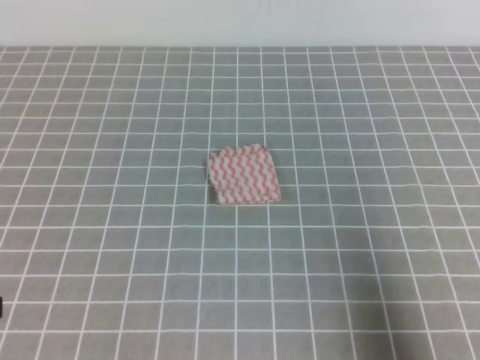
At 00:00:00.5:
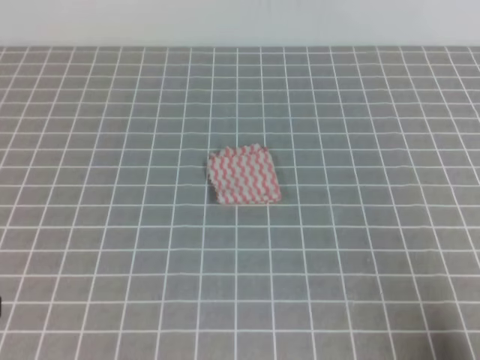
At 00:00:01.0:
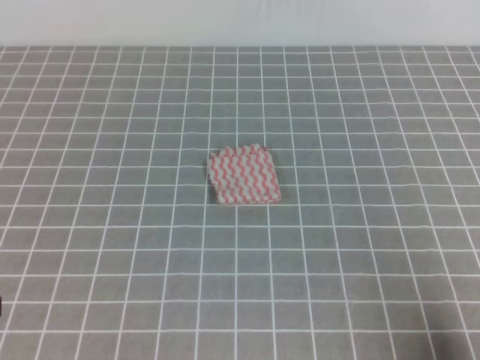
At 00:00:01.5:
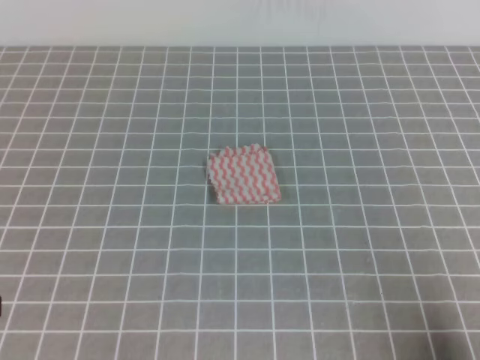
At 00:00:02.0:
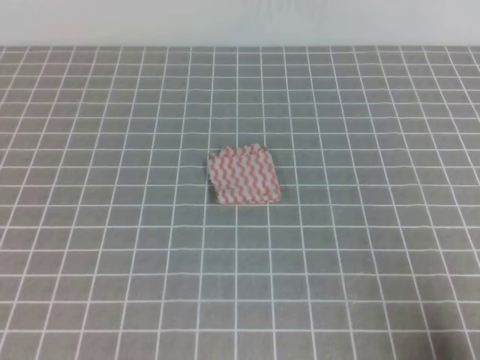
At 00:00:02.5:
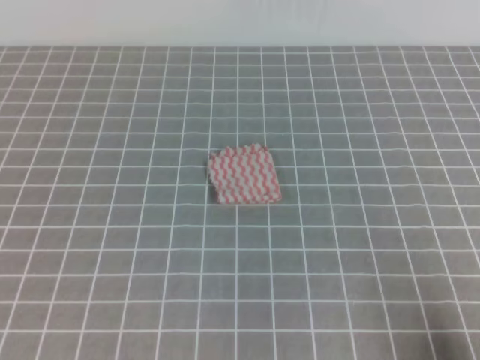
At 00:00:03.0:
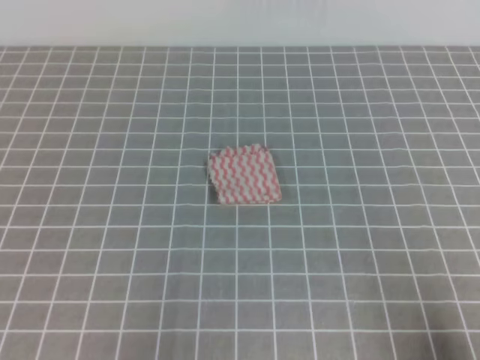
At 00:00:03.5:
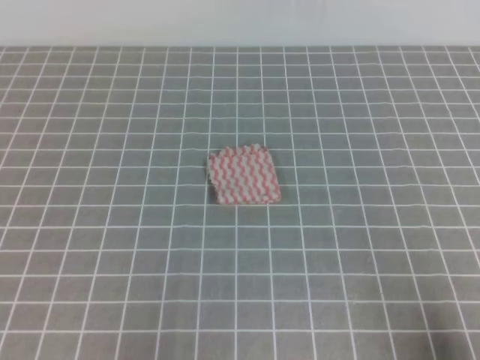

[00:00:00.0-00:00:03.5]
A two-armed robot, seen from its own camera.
00:00:00.0 to 00:00:02.0: The right gripper shifts approximately 5 cm downward.

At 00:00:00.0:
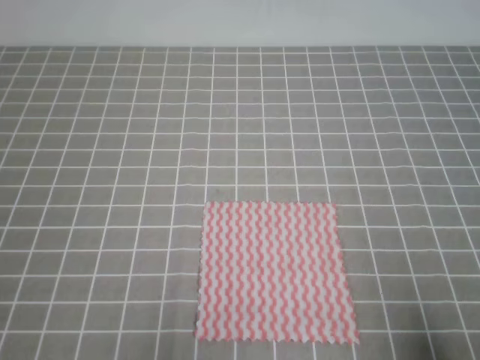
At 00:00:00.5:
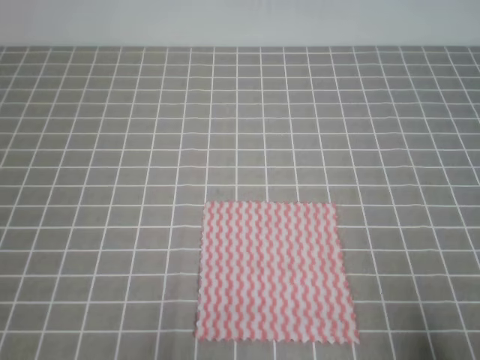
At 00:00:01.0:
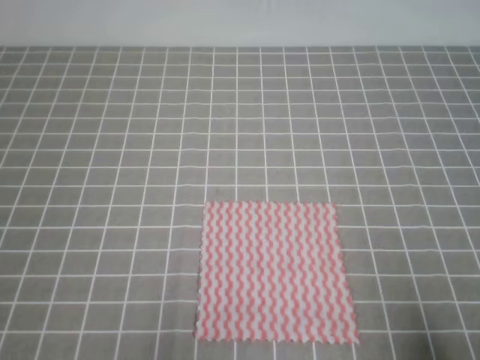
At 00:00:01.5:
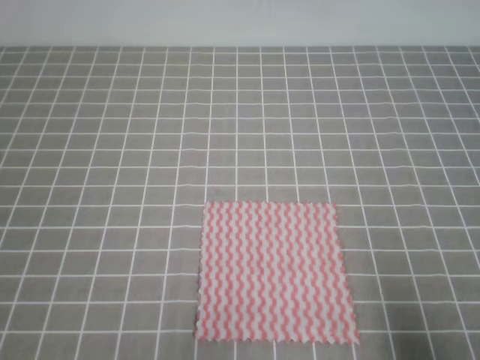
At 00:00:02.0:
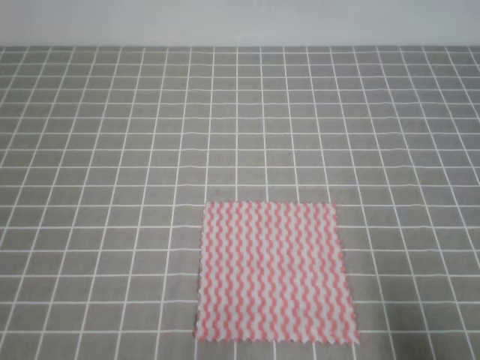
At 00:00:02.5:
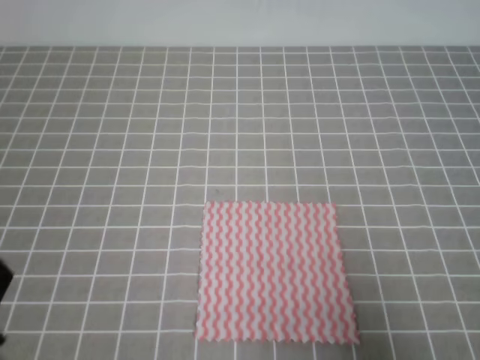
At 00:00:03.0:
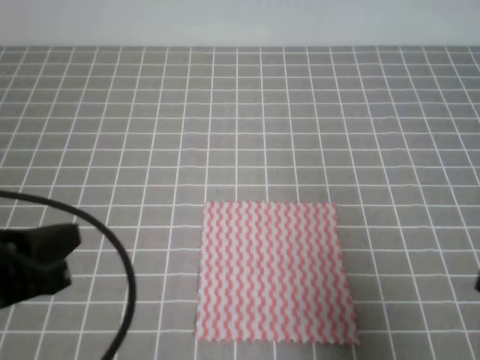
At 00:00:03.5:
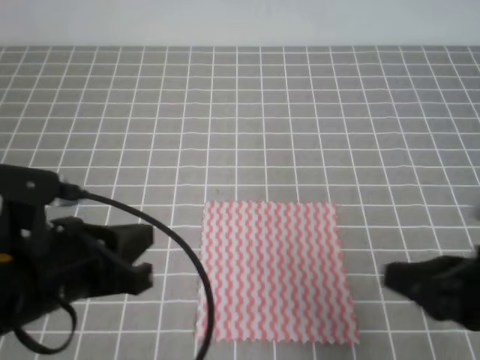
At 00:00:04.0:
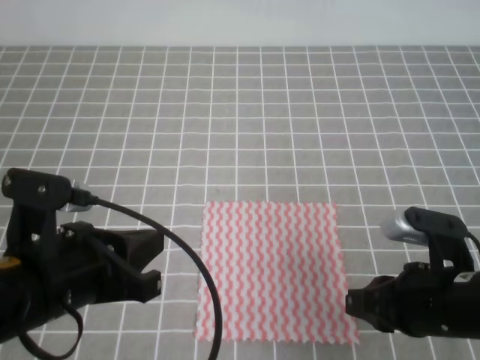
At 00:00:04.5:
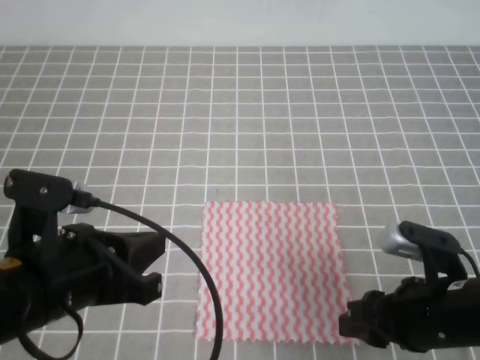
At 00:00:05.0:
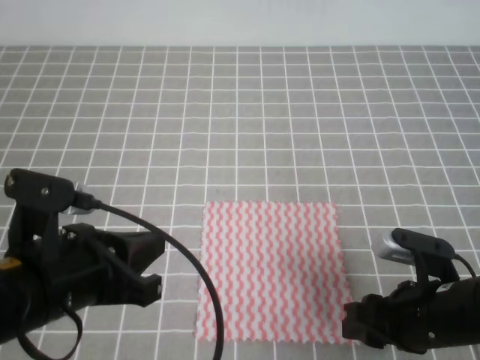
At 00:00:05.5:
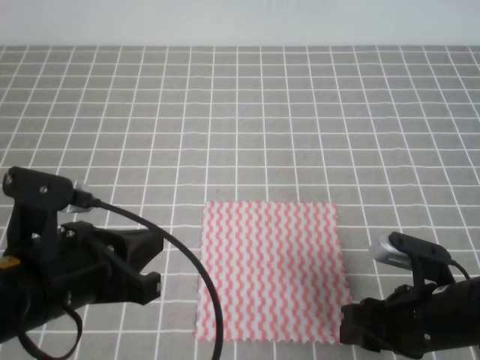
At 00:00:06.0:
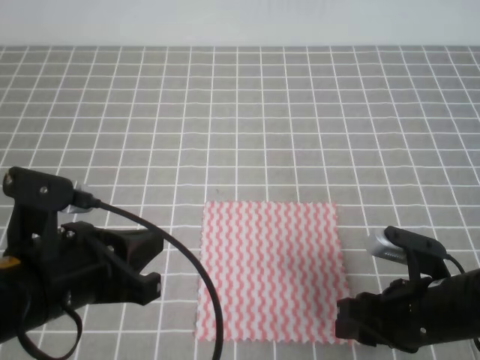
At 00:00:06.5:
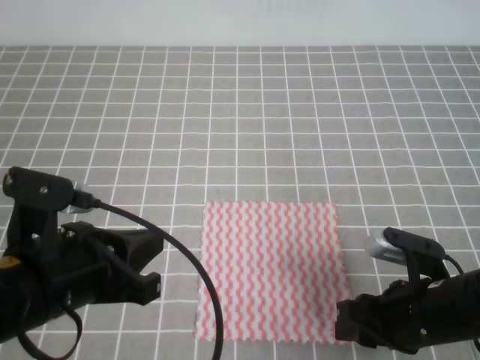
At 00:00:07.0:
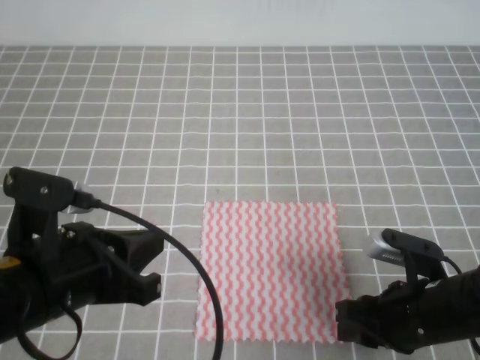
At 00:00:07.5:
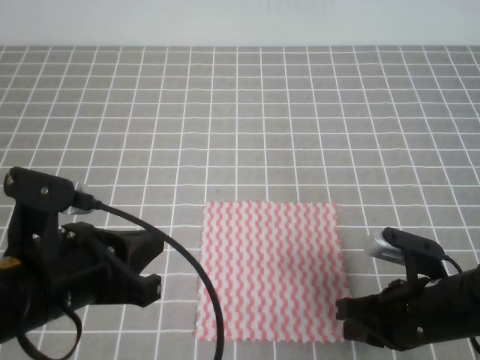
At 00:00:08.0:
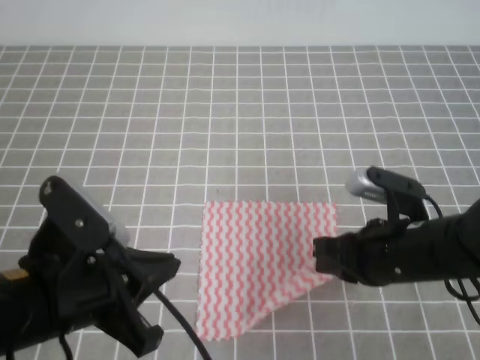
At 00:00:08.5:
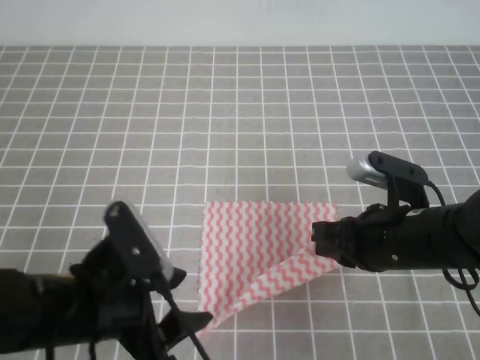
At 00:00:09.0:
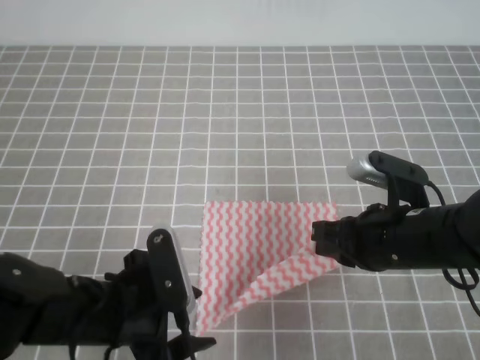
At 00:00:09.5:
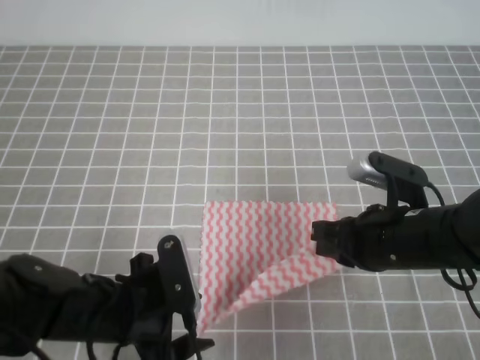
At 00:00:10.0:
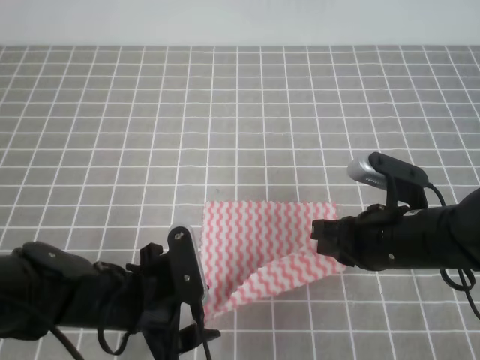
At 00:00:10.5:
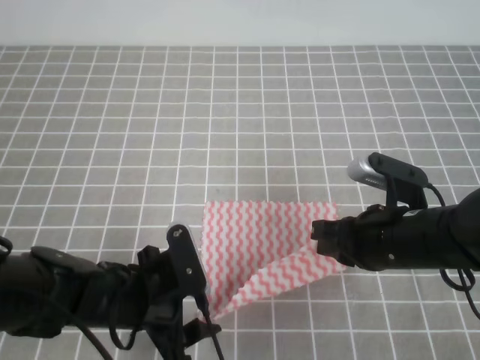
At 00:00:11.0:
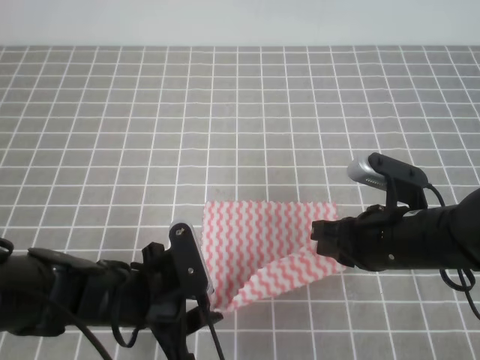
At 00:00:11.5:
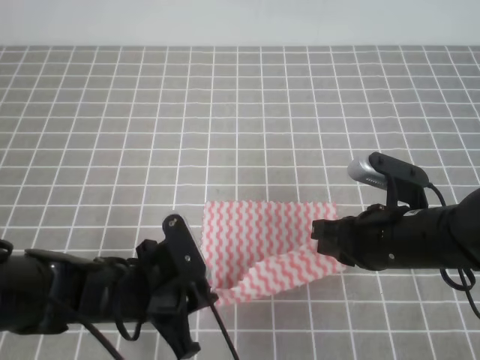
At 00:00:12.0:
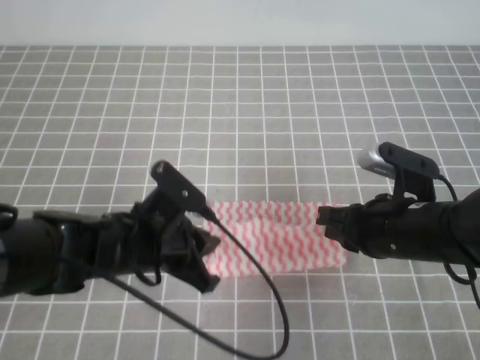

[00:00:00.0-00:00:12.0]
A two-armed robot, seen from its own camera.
00:00:02.0 to 00:00:04.0: The right gripper is displaced to the left and forward by about 15 cm, and opens; the left gripper travels forward, to the right and upward by some 15 cm.
00:00:04.0 to 00:00:06.0: The right gripper changes place by some 5 cm, and opens its fingers.
00:00:06.0 to 00:00:08.0: The right gripper ends up about 5 cm from where it was, and closes up.
00:00:08.0 to 00:00:10.0: The left gripper is displaced downward by some 10 cm, and opens up.
00:00:10.0 to 00:00:12.0: The left gripper changes place by roughly 5 cm, and closes its fingers.

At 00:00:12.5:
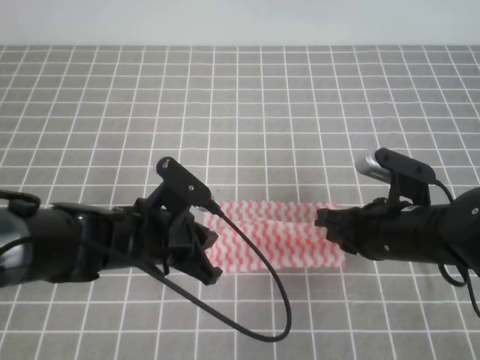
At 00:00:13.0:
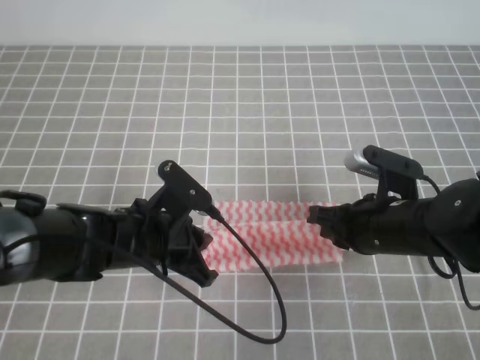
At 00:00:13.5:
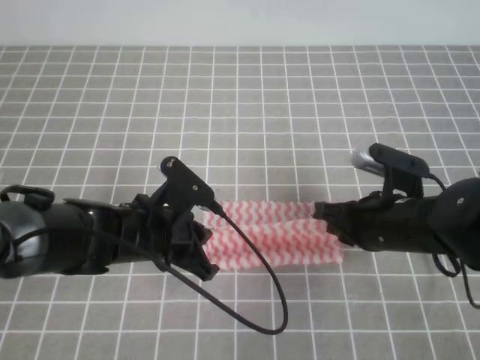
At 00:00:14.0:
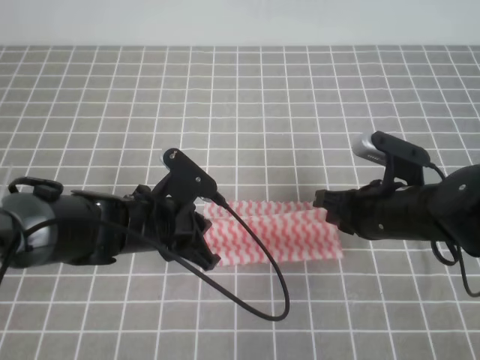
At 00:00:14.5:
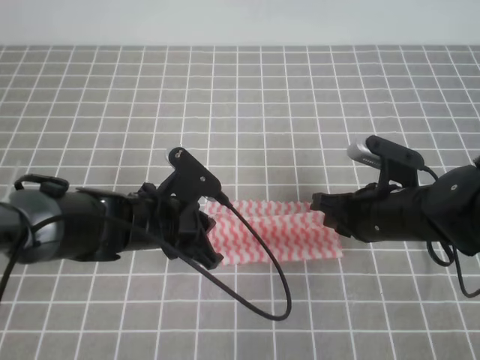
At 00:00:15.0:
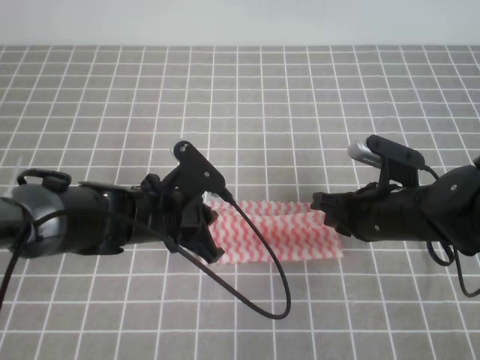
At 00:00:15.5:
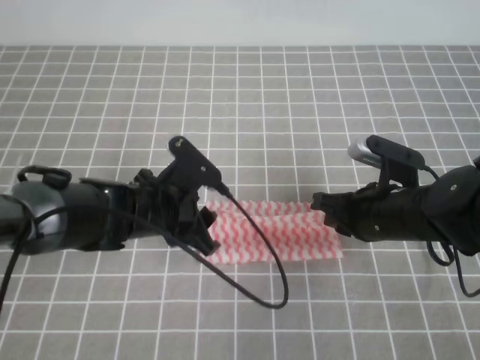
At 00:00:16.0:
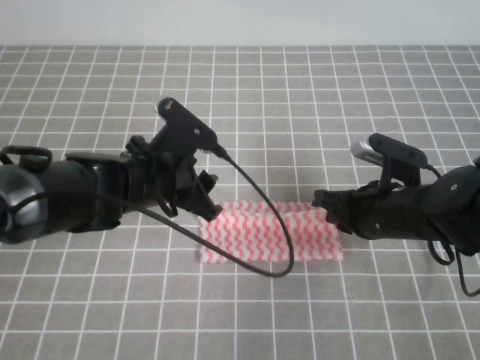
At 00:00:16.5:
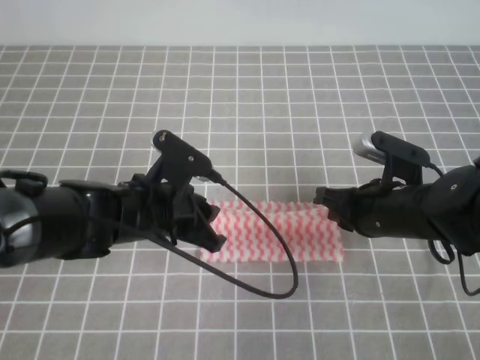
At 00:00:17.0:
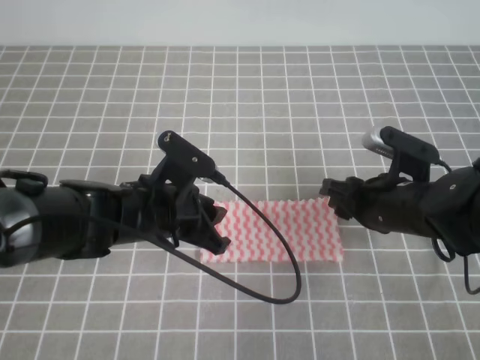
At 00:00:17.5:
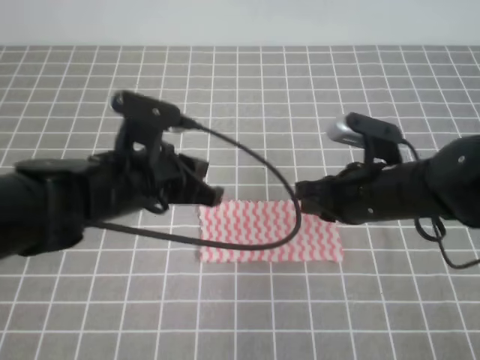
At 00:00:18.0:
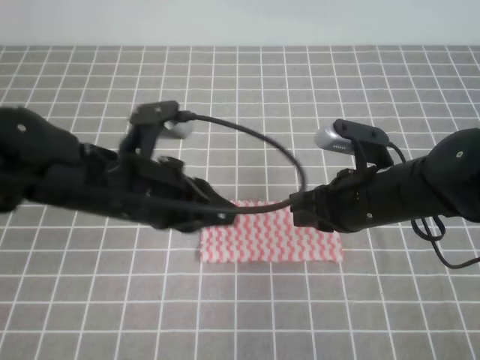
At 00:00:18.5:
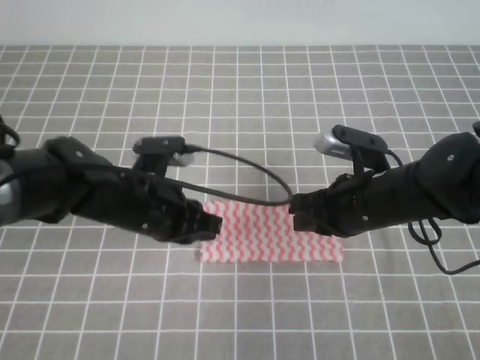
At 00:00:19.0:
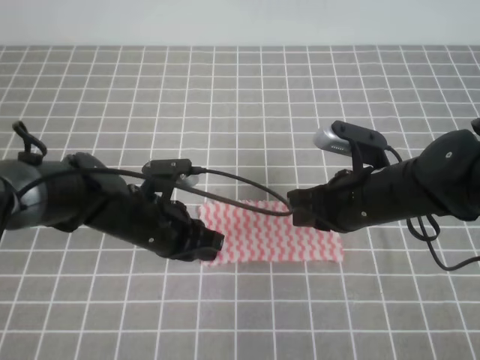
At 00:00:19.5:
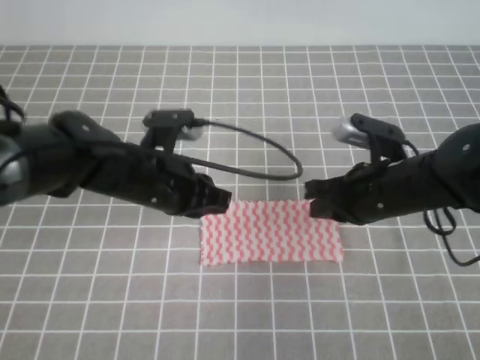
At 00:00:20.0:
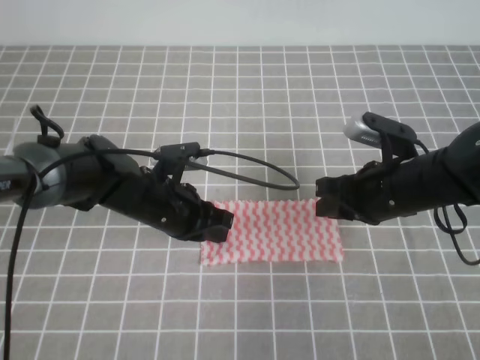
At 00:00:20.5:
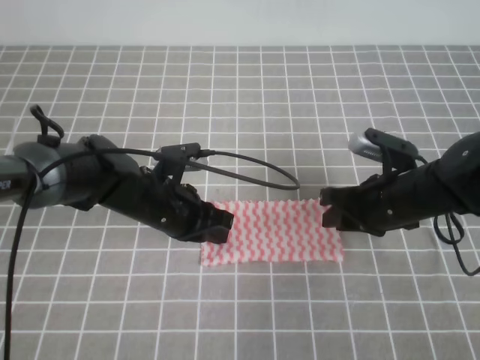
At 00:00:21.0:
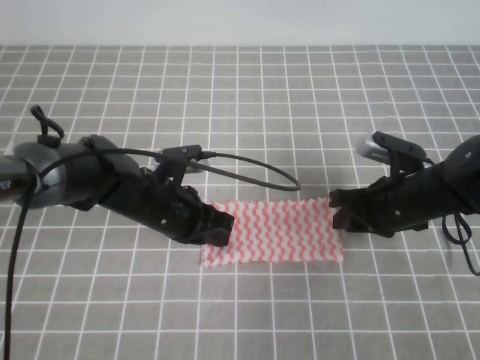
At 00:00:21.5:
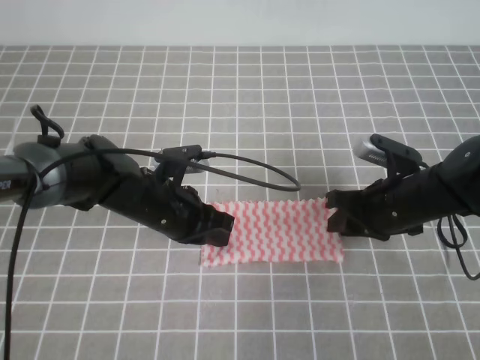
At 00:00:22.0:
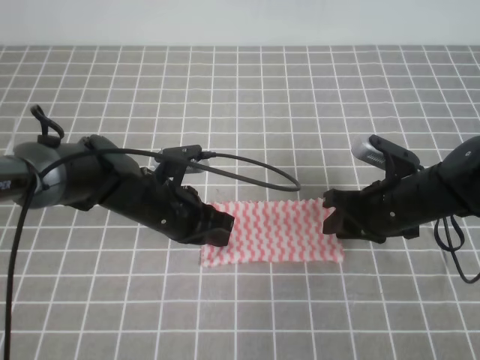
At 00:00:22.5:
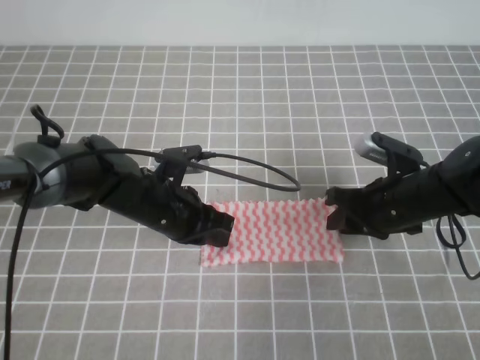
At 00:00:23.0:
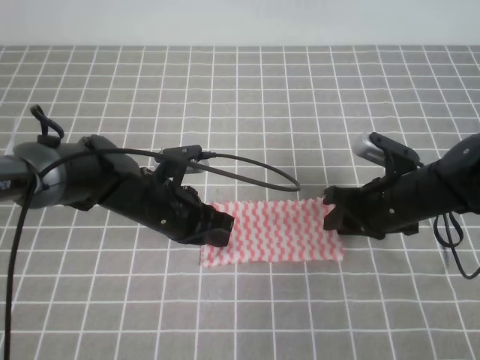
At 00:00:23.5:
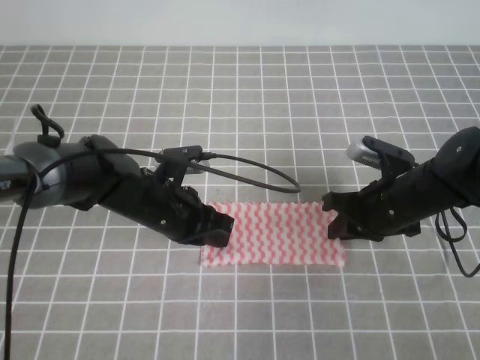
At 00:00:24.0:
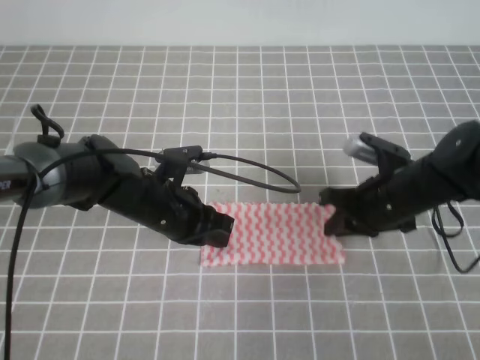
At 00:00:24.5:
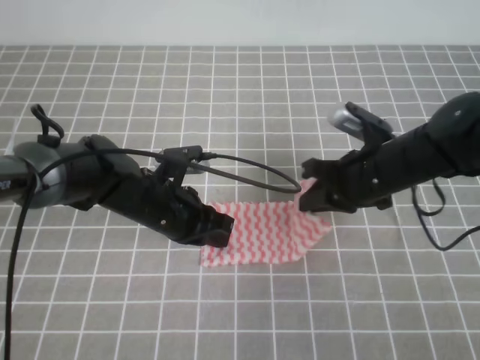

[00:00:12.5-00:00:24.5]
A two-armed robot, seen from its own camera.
00:00:12.5 to 00:00:14.5: The grippers move only a little.
00:00:14.5 to 00:00:16.5: The left gripper opens its fingers.
00:00:16.5 to 00:00:18.5: The left gripper reaches roughly 10 cm upward, then returns, and closes up, while the right gripper opens, then closes once more.
00:00:18.5 to 00:00:20.5: The right gripper ends up approximately 5 cm from where it was, and opens its fingers. Meanwhile the left gripper moves about 5 cm.
00:00:20.5 to 00:00:22.5: There are only small adjustments of the grippers.
00:00:22.5 to 00:00:24.5: The right gripper shifts by roughly 5 cm, and closes up.
